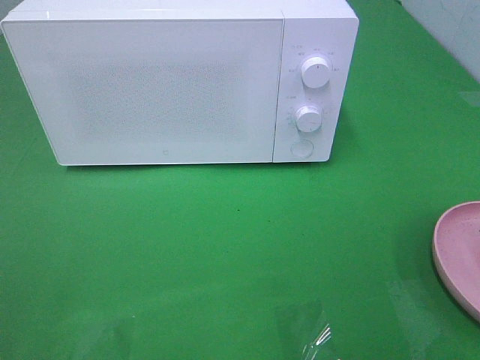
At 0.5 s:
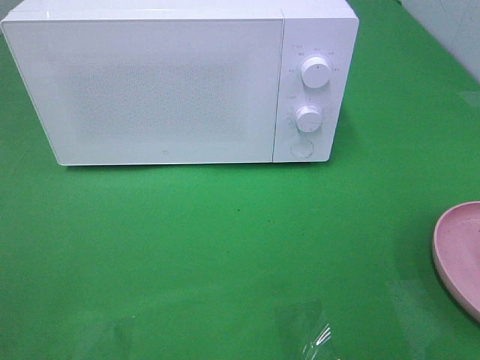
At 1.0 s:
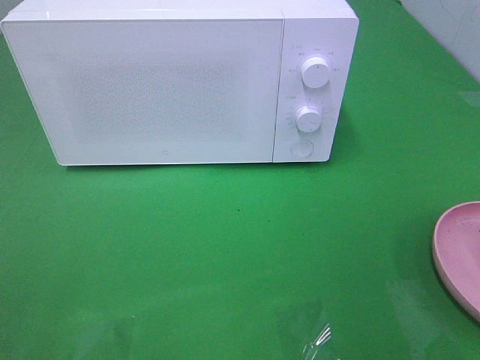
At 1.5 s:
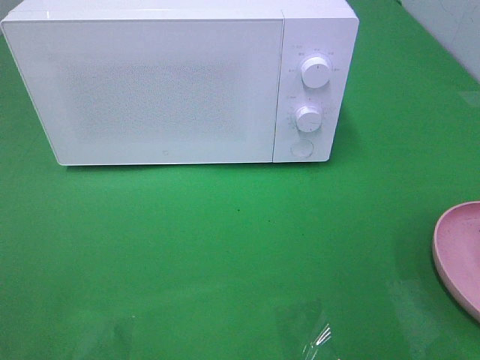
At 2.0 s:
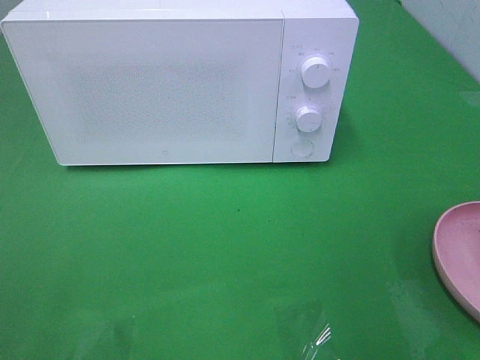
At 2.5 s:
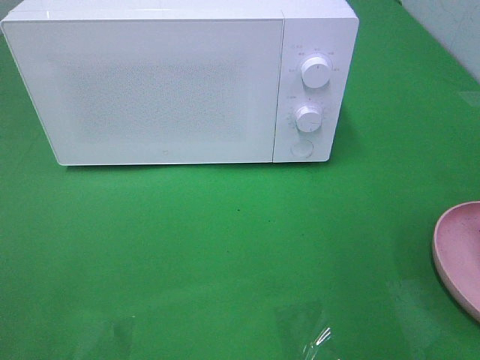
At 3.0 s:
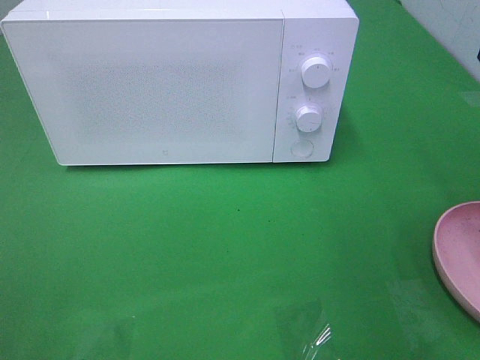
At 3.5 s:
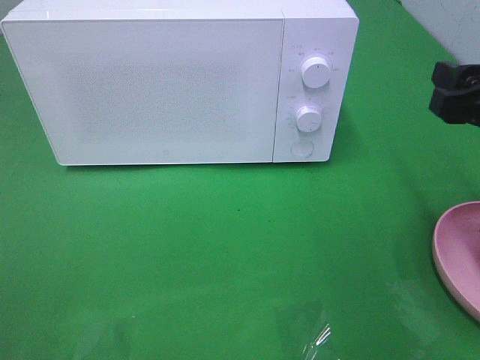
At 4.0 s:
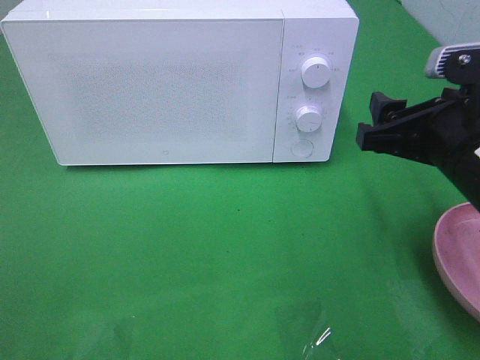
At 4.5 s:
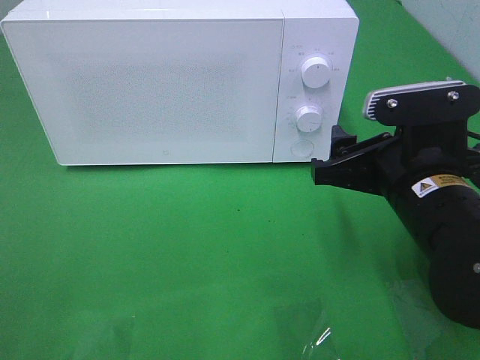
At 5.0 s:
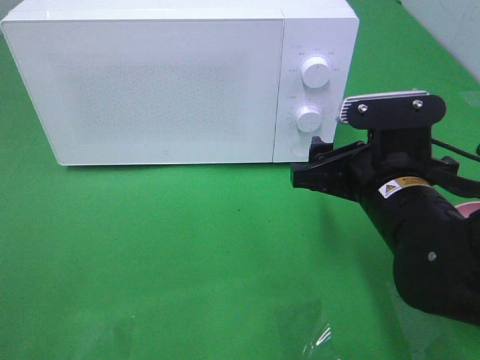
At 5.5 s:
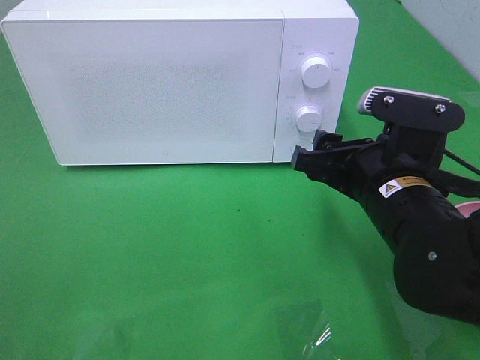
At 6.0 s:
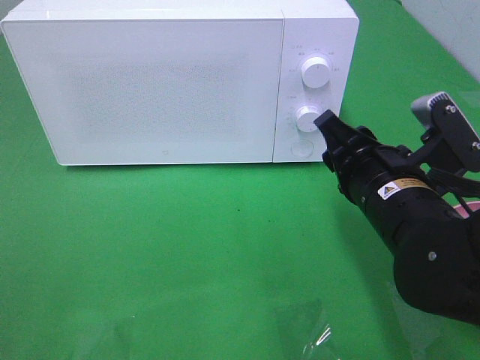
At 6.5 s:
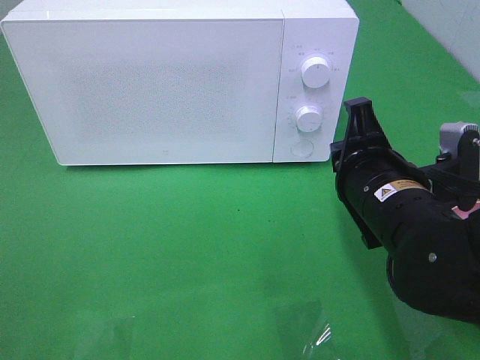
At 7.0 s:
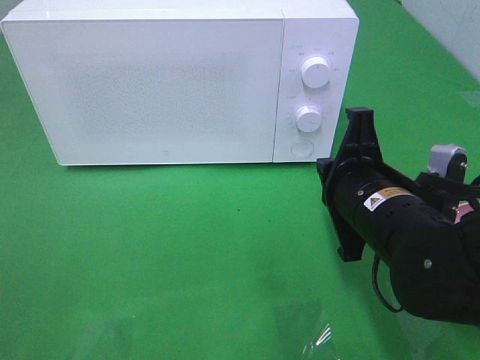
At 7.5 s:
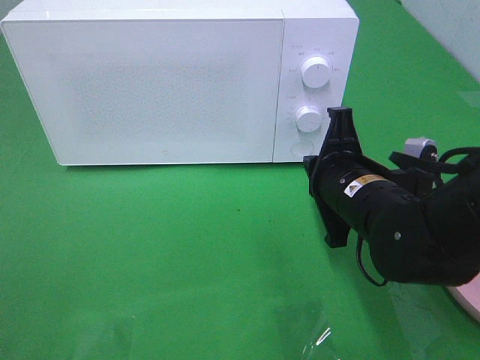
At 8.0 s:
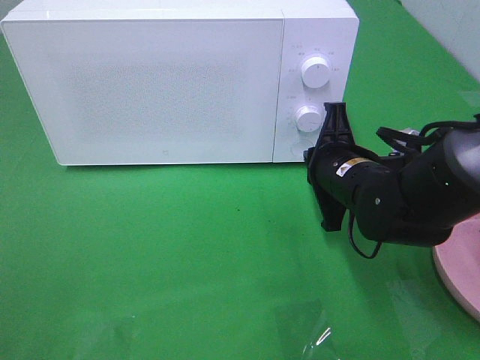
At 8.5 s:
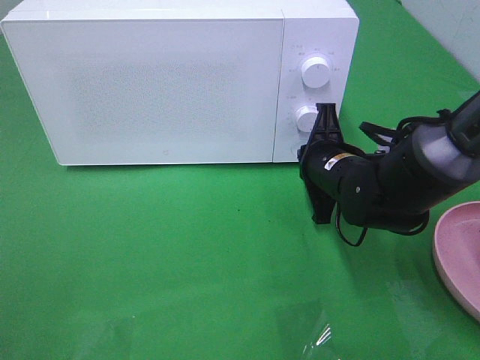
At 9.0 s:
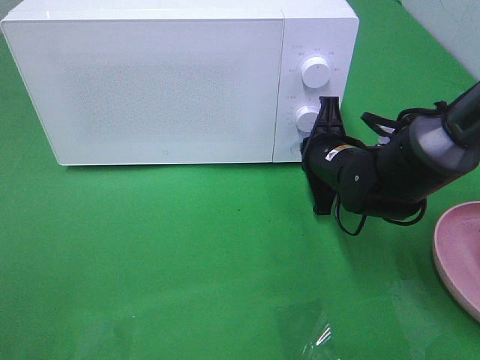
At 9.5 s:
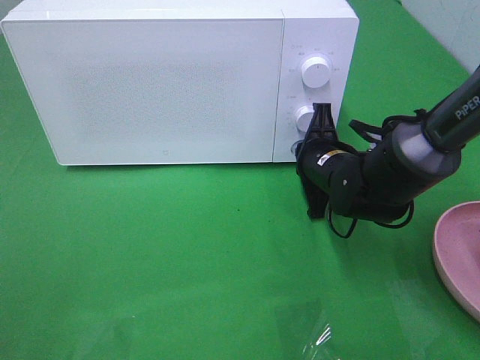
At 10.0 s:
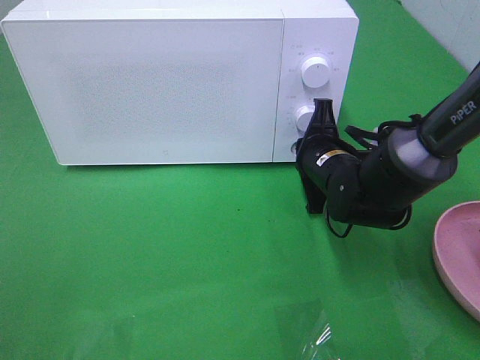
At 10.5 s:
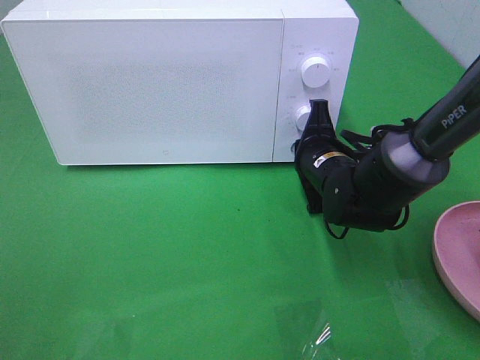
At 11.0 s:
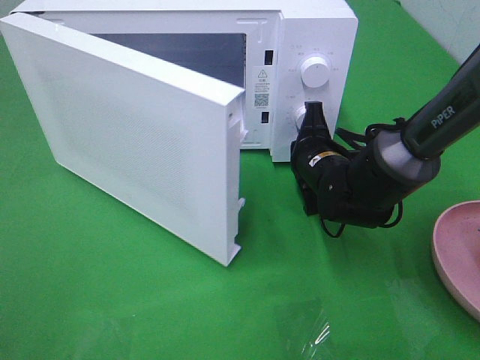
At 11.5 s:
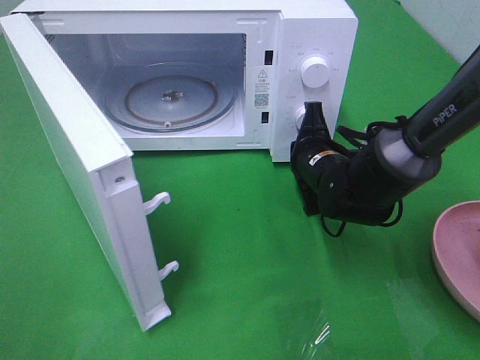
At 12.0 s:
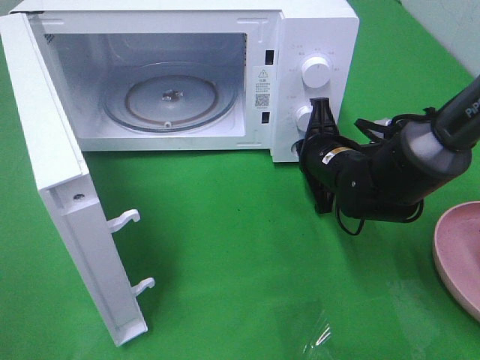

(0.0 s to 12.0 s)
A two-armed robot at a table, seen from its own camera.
Task of the whole recording: Heat the burger.
2.0 s - 4.0 s: The right gripper travels downward, forward and to the left by about 20 cm.
4.0 s - 6.0 s: The right gripper shifts approximately 5 cm to the left, and closes up.
6.0 s - 8.0 s: The right gripper travels forward by roughly 10 cm, and closes its fingers.
8.0 s - 10.0 s: The right gripper changes place by about 5 cm.

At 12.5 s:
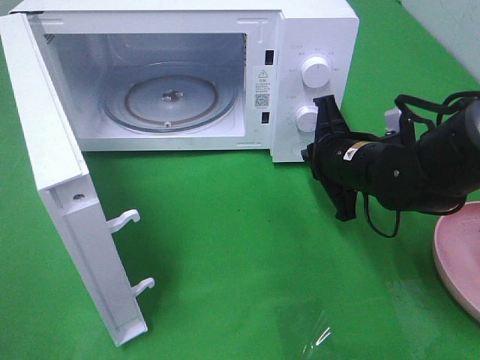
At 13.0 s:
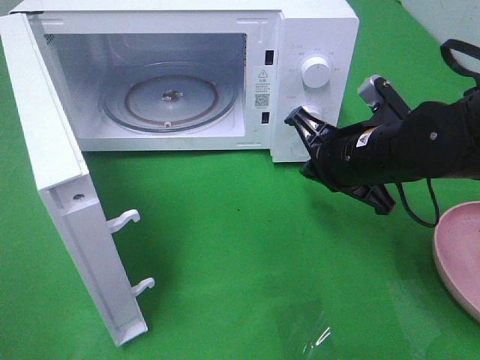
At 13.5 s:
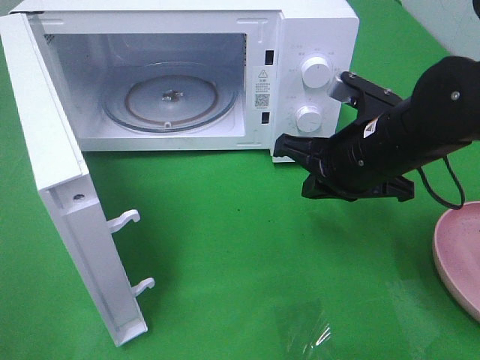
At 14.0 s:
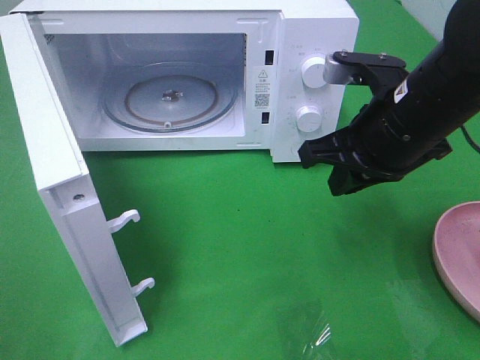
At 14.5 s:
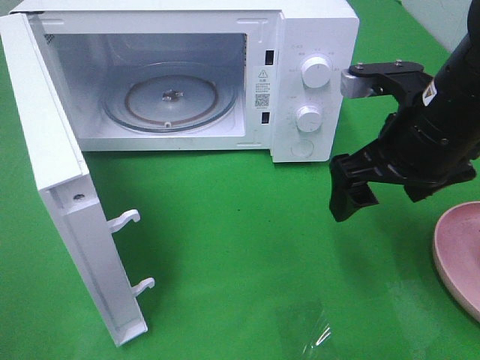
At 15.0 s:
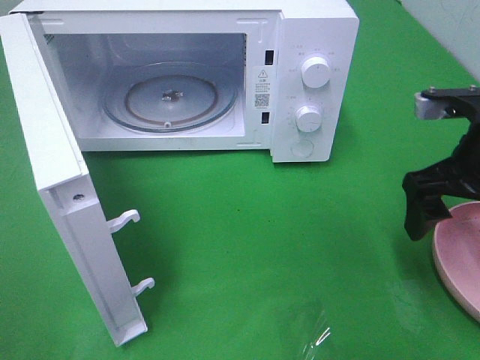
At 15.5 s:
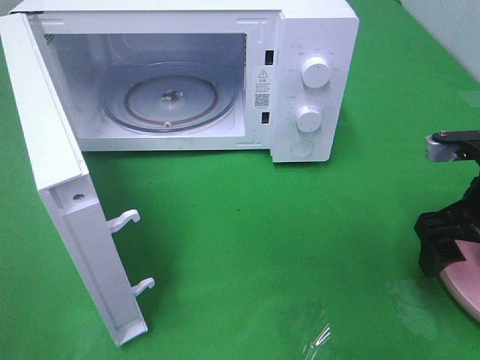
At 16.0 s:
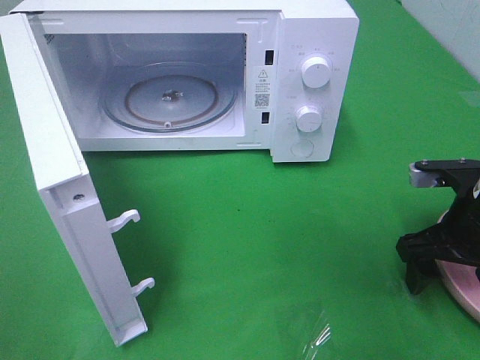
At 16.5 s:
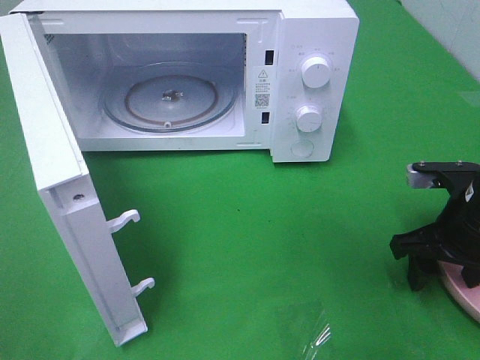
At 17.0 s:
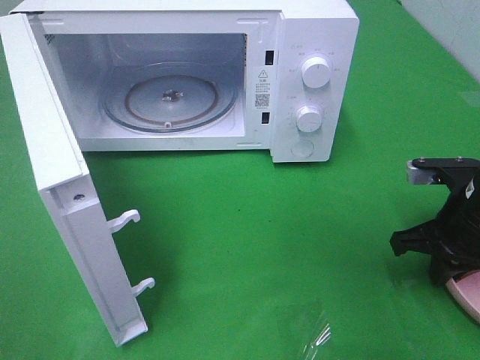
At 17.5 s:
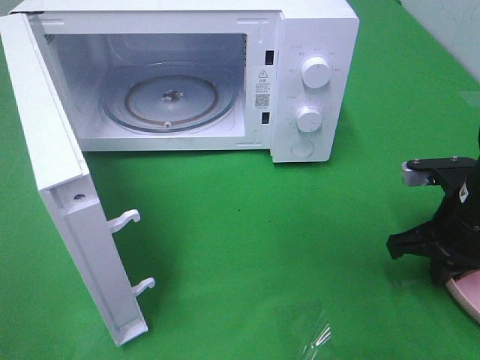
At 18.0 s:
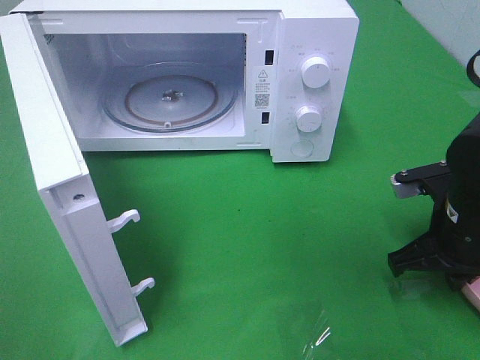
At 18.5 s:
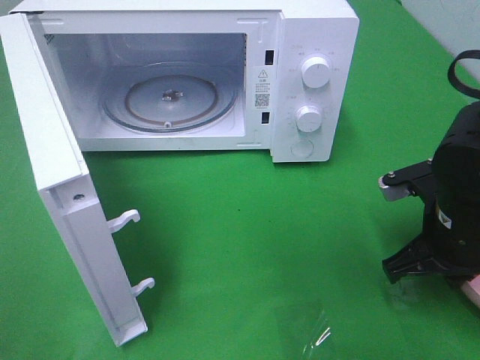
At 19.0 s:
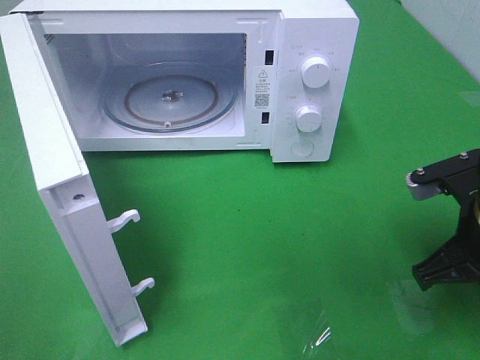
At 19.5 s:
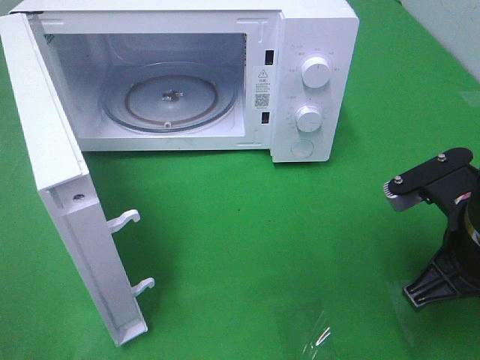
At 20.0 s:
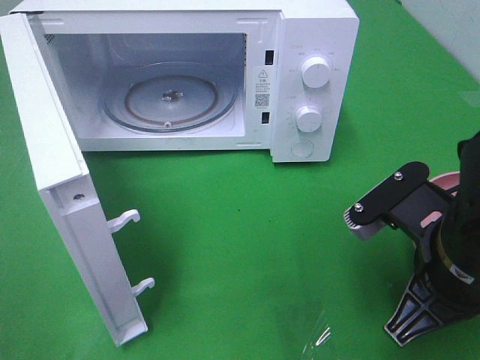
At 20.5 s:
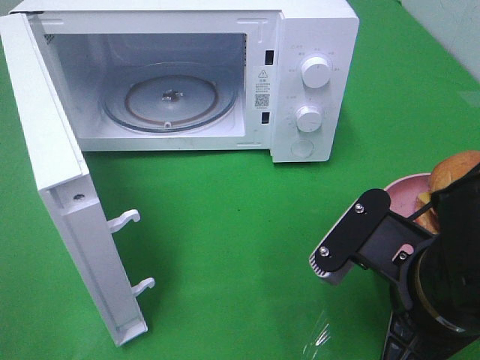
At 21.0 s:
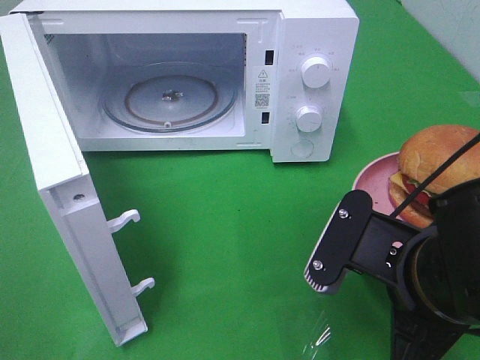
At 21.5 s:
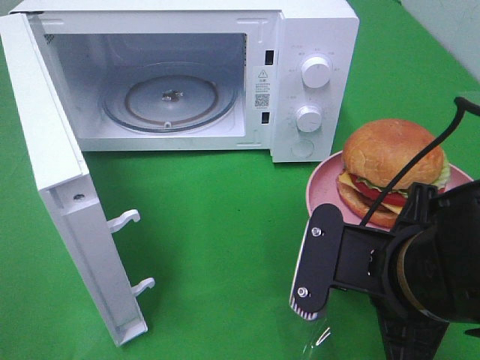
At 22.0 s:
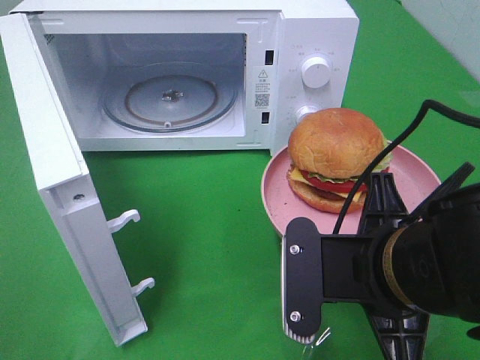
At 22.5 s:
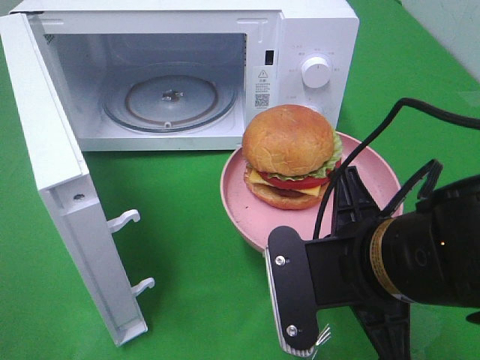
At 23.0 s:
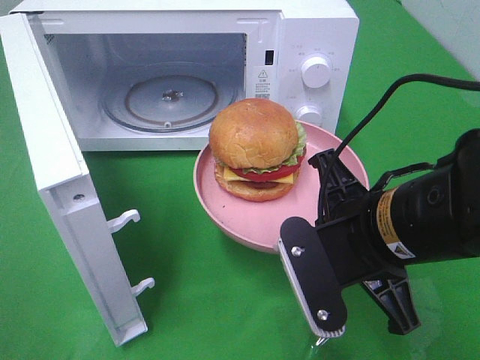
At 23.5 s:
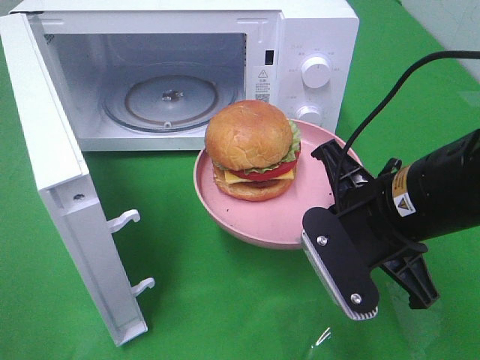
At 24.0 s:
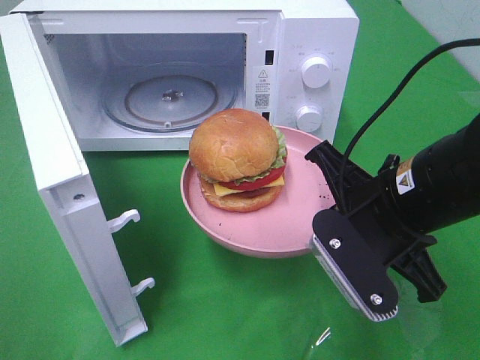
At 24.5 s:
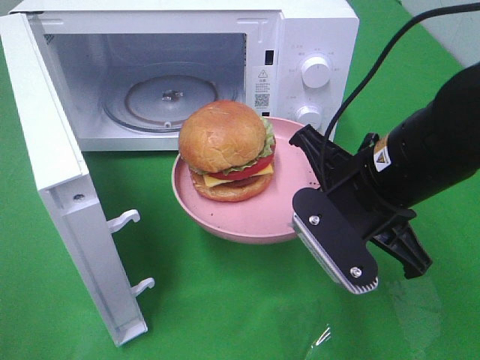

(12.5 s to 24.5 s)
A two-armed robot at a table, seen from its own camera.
Task of the whole recording: Heat the burger.
Step, 13.0 s - 17.5 s: Right hand: grab the plate with the hamburger.
12.5 s - 14.5 s: The right gripper travels upward and backward by approximately 10 cm, and opens.
14.5 s - 16.5 s: The right gripper shifts roughly 15 cm downward and to the right.
16.5 s - 18.5 s: The right gripper shifts by roughly 5 cm, and closes.
18.5 s - 20.5 s: The right gripper is displaced backward and to the left by approximately 15 cm.
22.5 s - 24.5 s: The right gripper is displaced forward by approximately 10 cm.

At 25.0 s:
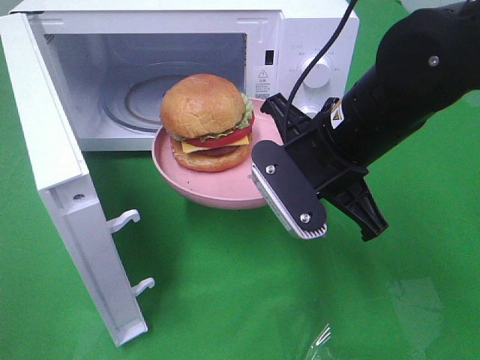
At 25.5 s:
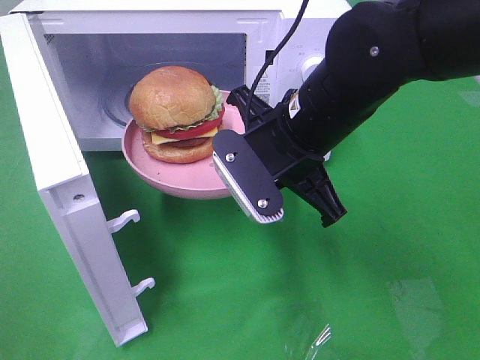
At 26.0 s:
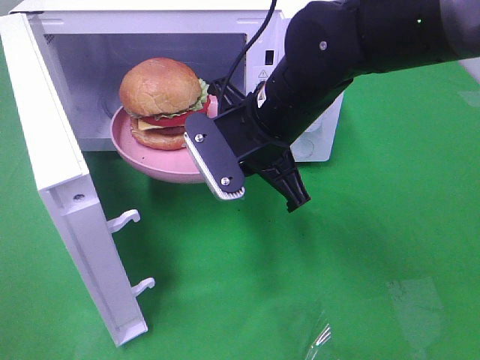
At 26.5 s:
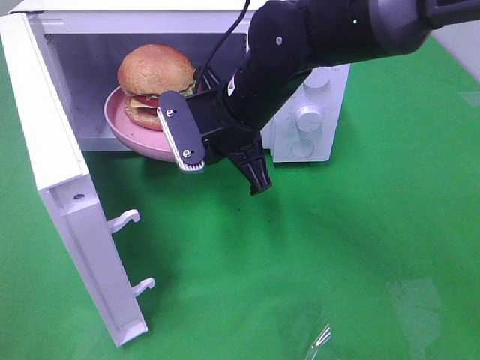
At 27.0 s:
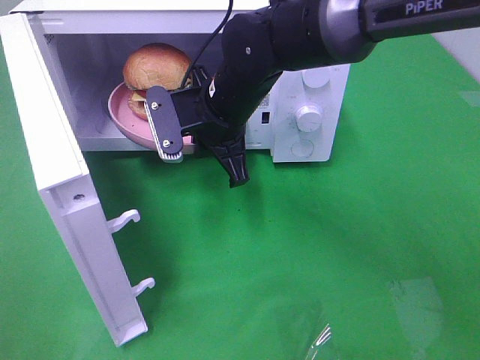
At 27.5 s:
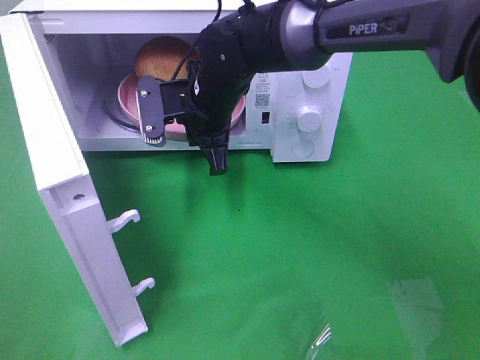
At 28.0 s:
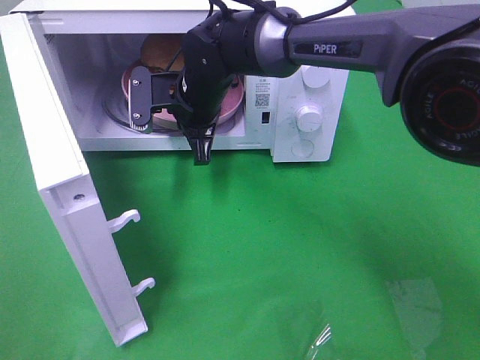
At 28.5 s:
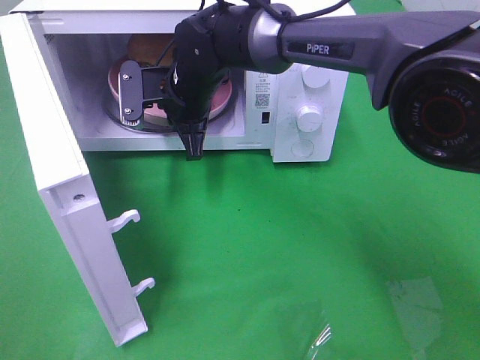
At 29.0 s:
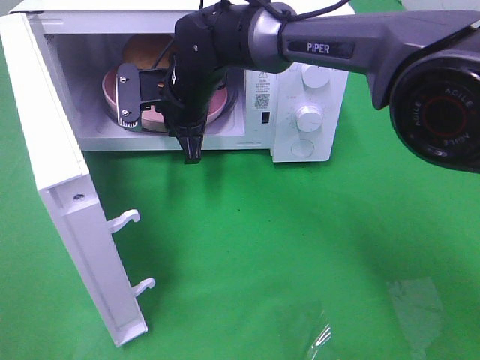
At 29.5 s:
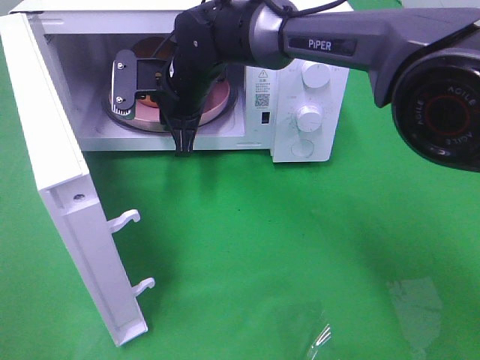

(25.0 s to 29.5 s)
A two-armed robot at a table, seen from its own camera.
Task of the whole recording: Heat the burger.
25.0 s - 27.0 s: The right gripper moves forward and to the left, roughly 15 cm.
27.0 s - 29.5 s: The right gripper shifts about 10 cm forward and to the left.
